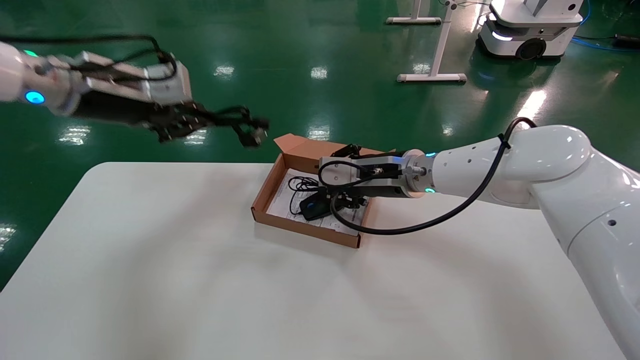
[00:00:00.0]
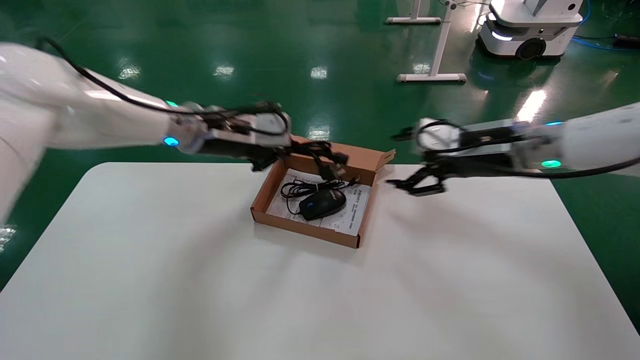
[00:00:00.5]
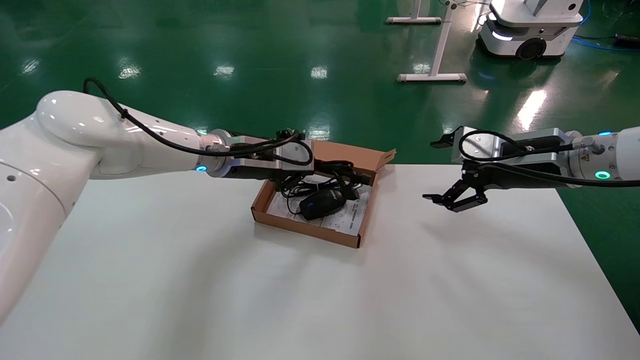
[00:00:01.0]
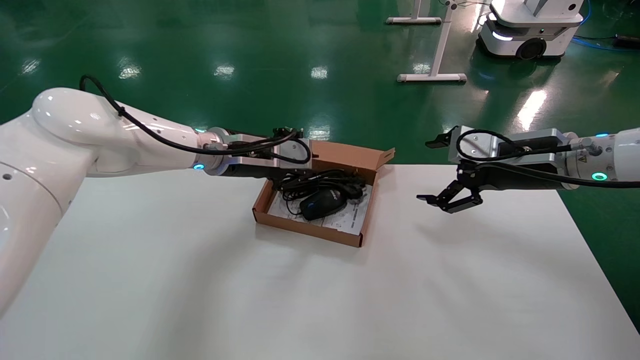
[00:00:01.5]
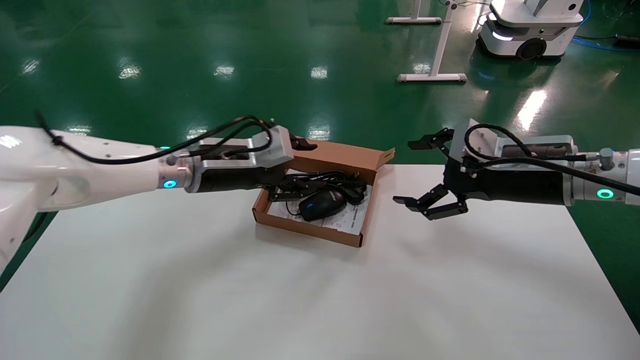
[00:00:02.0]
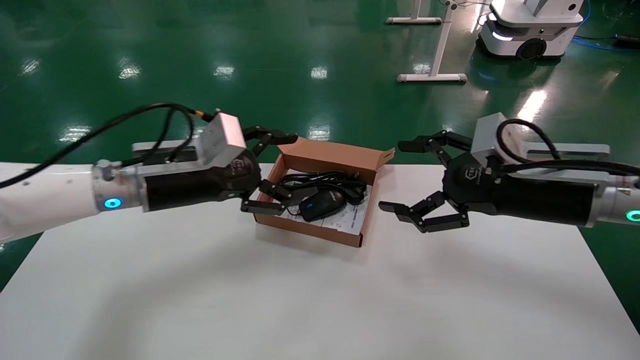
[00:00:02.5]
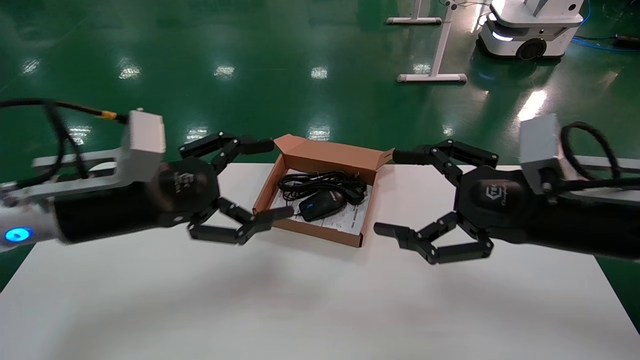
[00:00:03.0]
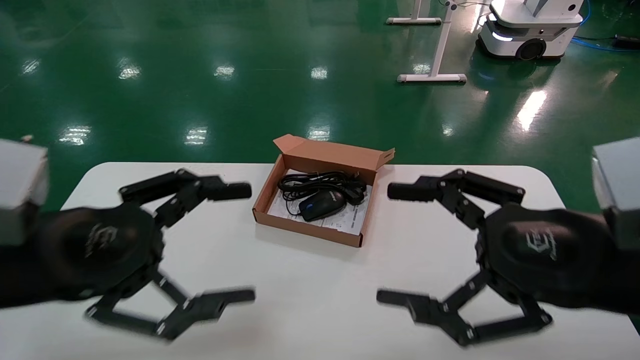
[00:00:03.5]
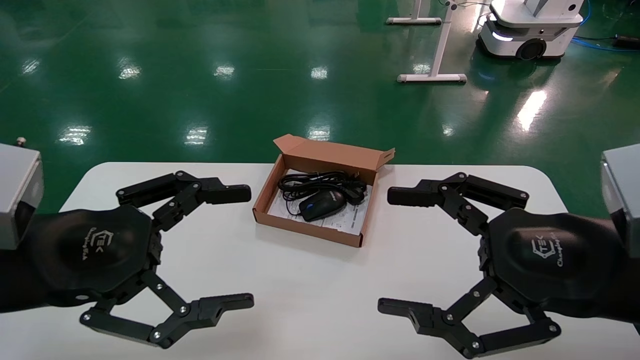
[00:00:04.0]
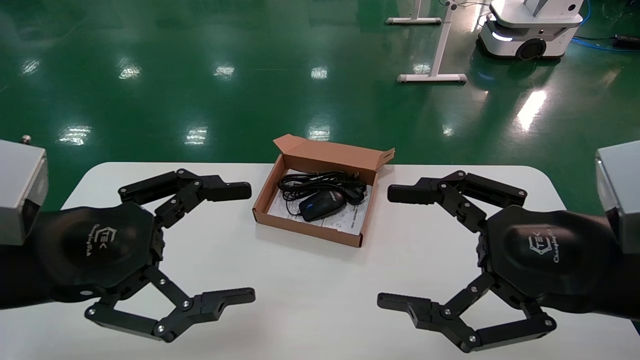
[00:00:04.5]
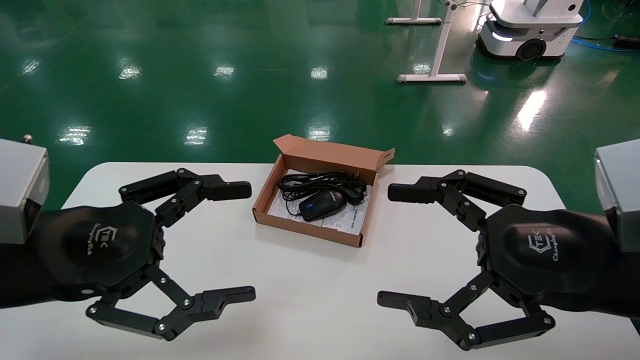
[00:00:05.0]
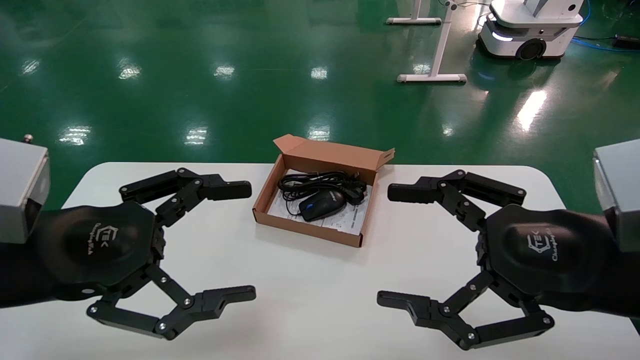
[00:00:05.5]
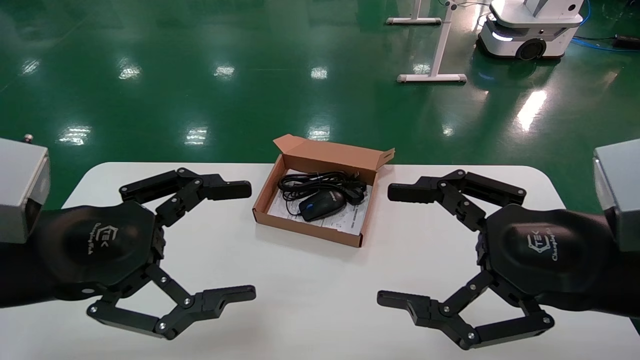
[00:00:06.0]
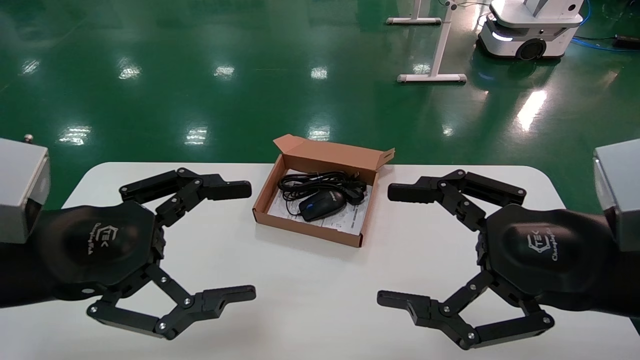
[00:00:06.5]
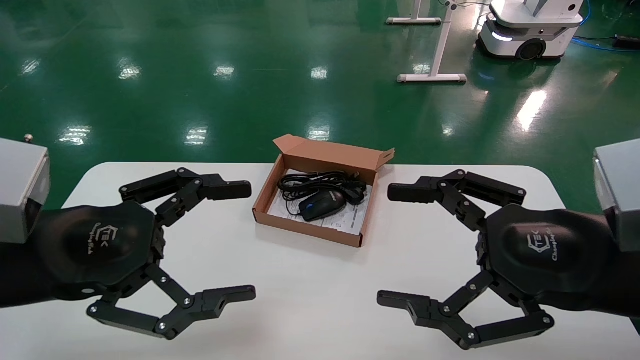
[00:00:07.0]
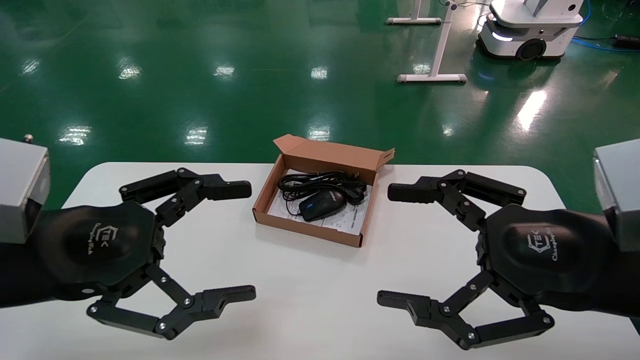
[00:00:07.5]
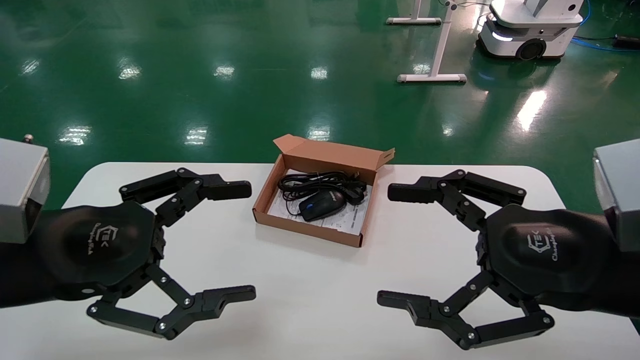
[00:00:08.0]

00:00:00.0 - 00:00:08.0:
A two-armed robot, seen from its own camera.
Step, 00:00:00.0 - 00:00:02.0: Place the mouse and power cord into the box.
00:00:00.0 - 00:00:02.0: The right gripper travels to the right and backward by roughly 20 cm, and opens. The left gripper heads downward and to the right, covering some 15 cm, and opens up.
00:00:02.0 - 00:00:04.0: The grippers both shift backward by roughly 20 cm. The left gripper opens its fingers.
00:00:04.0 - 00:00:08.0: Both grippers stay about where they are.
